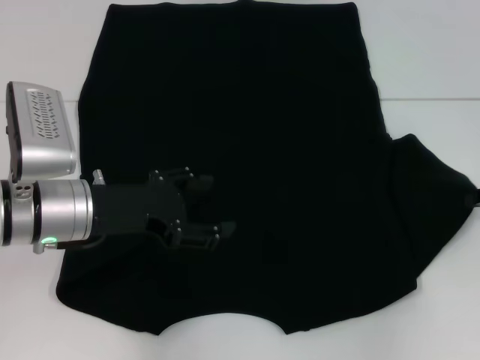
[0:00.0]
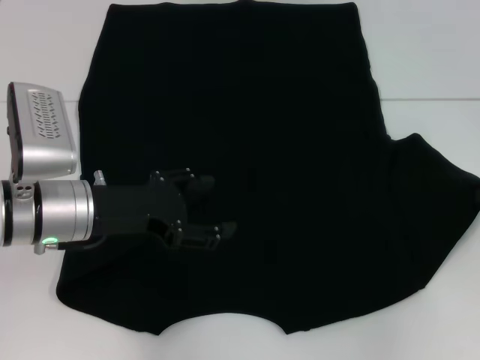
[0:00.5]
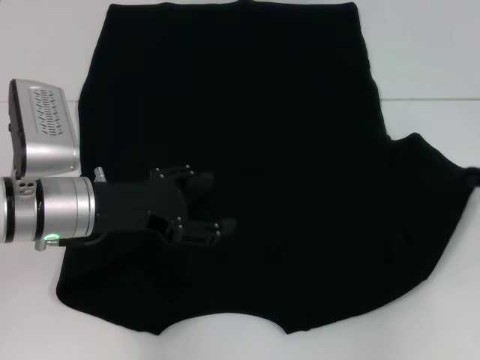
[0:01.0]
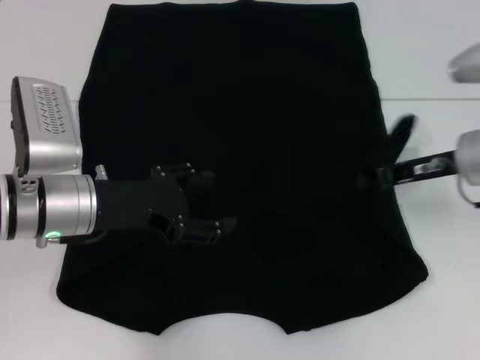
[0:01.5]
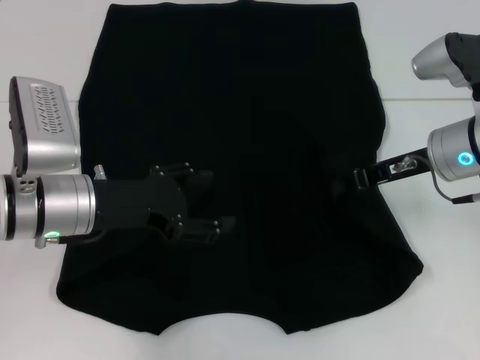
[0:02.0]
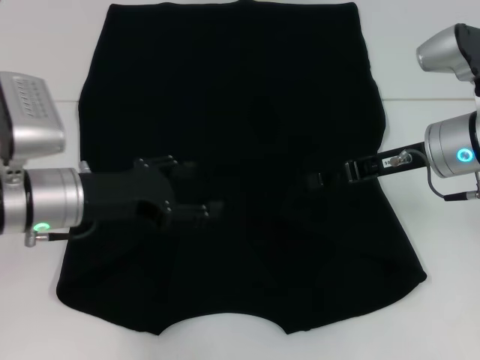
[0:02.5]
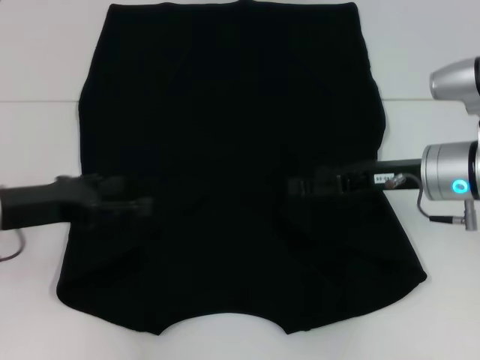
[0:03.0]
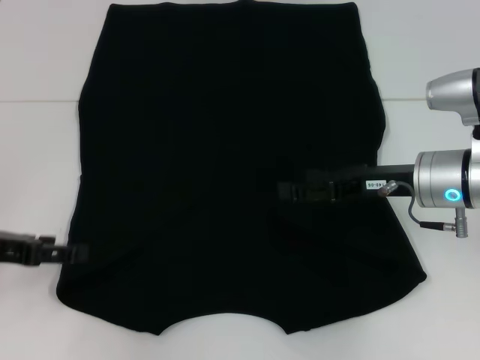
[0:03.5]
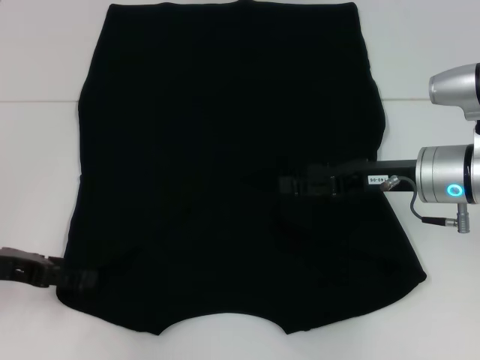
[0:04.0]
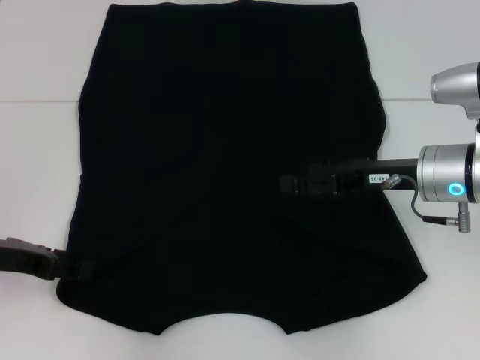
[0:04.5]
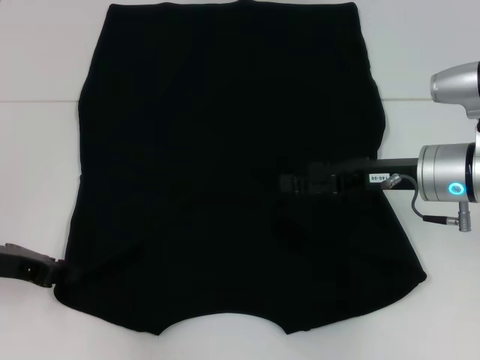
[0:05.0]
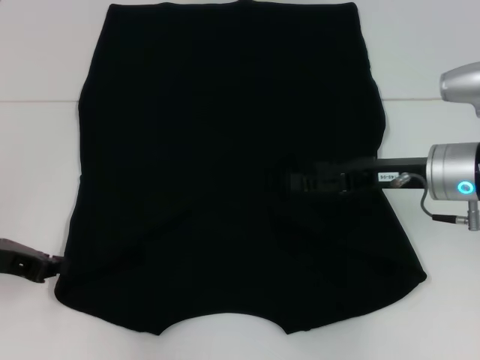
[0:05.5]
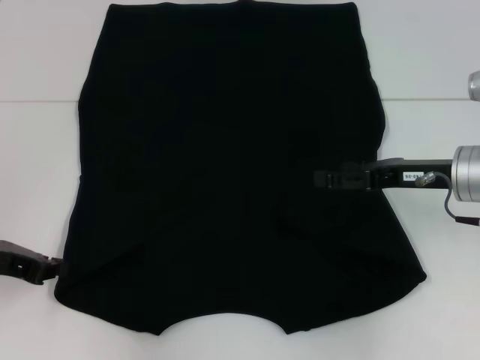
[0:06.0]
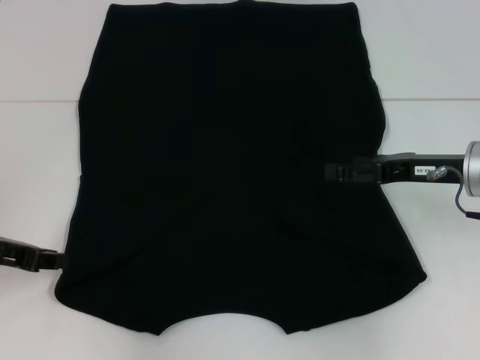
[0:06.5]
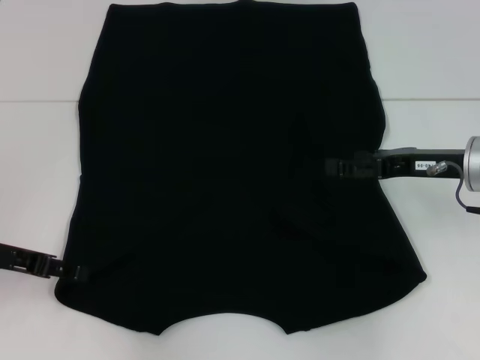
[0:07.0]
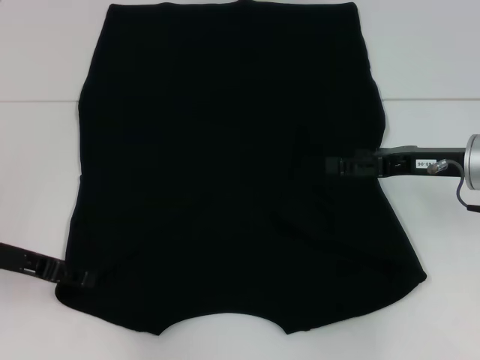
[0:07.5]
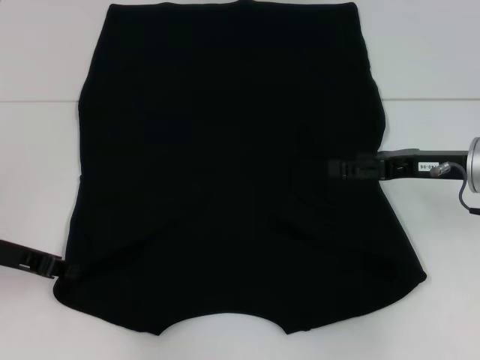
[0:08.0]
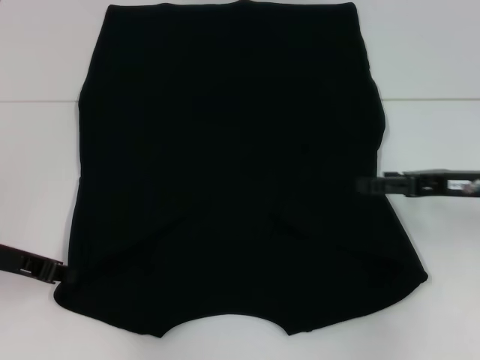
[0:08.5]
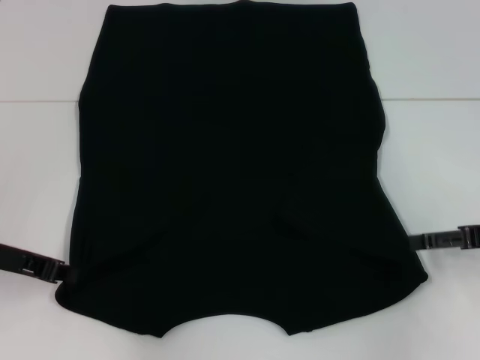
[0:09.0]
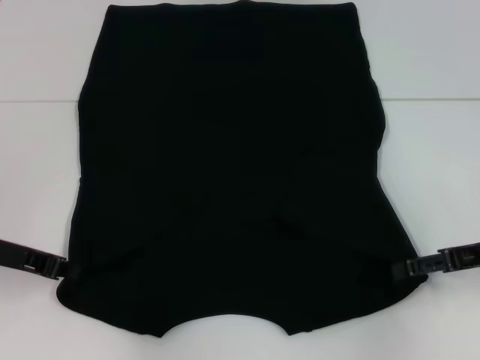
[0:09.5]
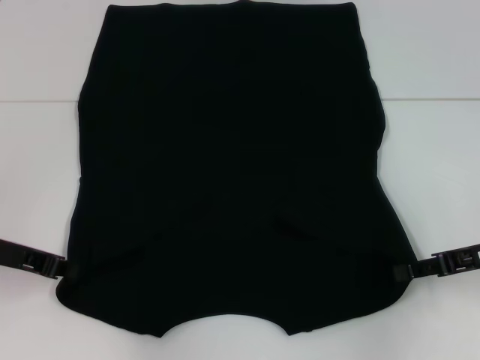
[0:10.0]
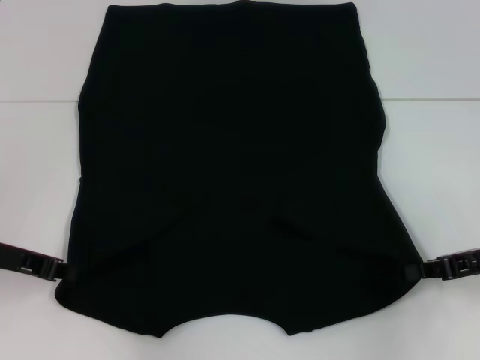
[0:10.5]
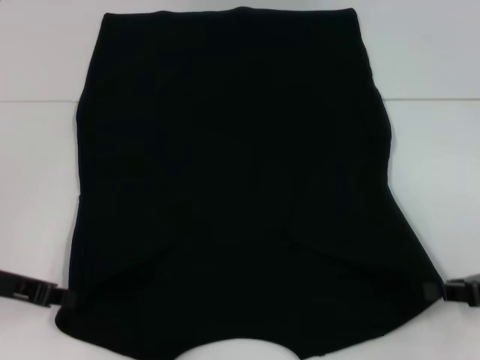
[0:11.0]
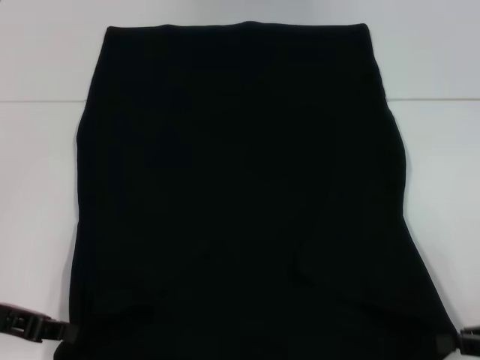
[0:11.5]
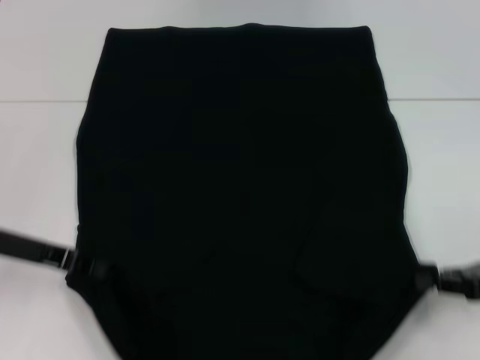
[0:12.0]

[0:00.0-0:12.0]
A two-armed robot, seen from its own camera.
Step, 0:00.0 to 0:02.5: Fold the bottom right sleeve with your right hand.
Step, 0:03.0 to 0:10.5: Grab the bottom left corner with your left hand.
Step, 0:03.0 to 0:10.5: Grab the bottom right corner with your right hand.
0:00.0 to 0:02.0: The right gripper is displaced to the left by some 15 cm.
0:02.0 to 0:04.0: The right gripper opens up. Meanwhile the left gripper moves to the left, approximately 10 cm.
0:04.0 to 0:06.0: The left gripper closes.
0:06.0 to 0:08.0: The left gripper opens, then closes once more.
0:08.0 to 0:10.0: The right gripper travels to the right by some 5 cm.
0:10.0 to 0:12.0: The right gripper is displaced backward by approximately 5 cm, and closes its fingers.

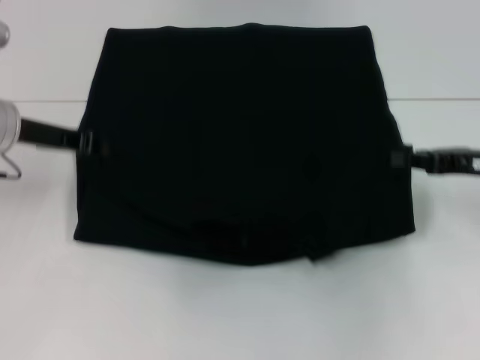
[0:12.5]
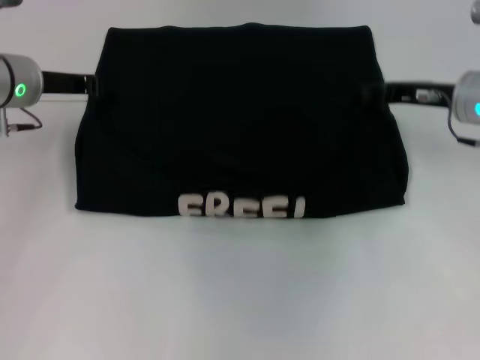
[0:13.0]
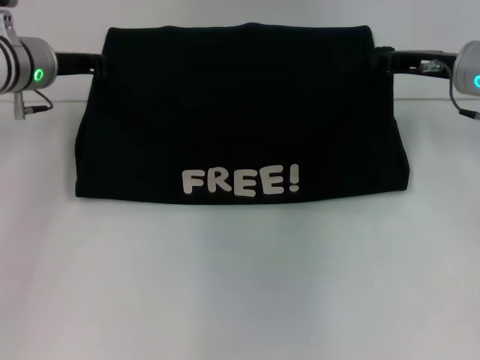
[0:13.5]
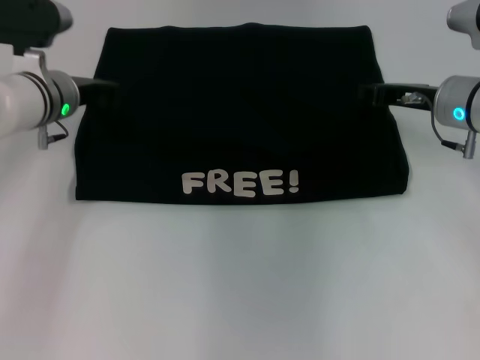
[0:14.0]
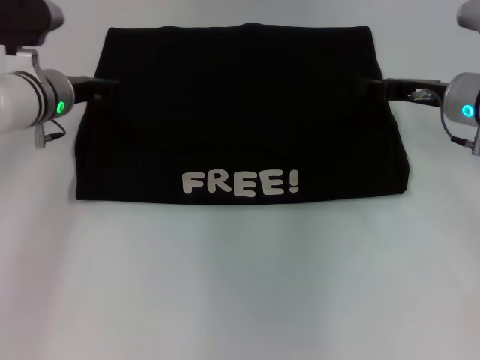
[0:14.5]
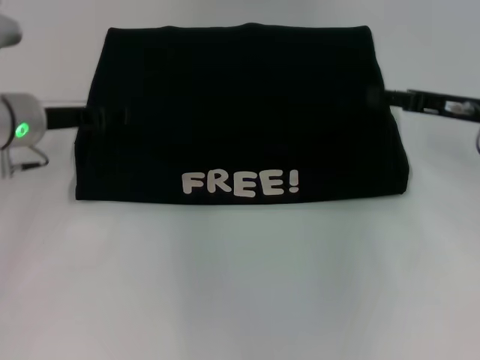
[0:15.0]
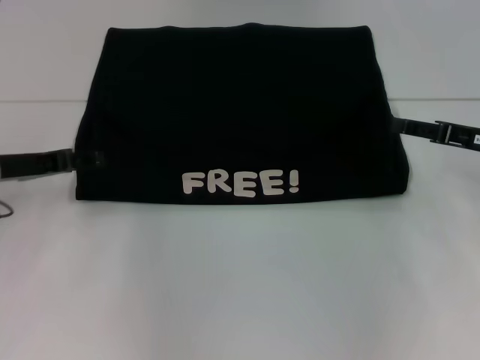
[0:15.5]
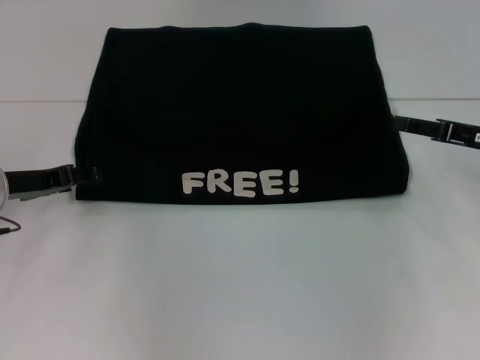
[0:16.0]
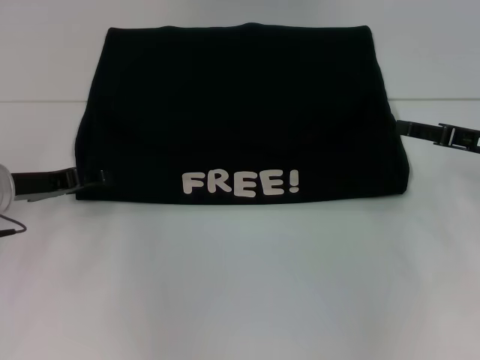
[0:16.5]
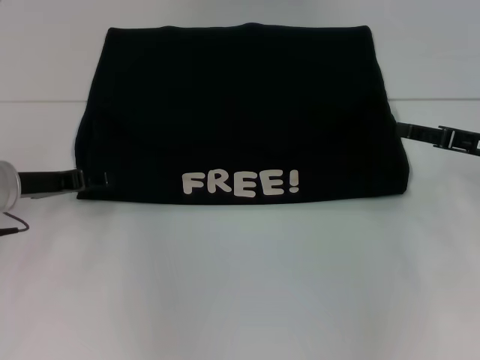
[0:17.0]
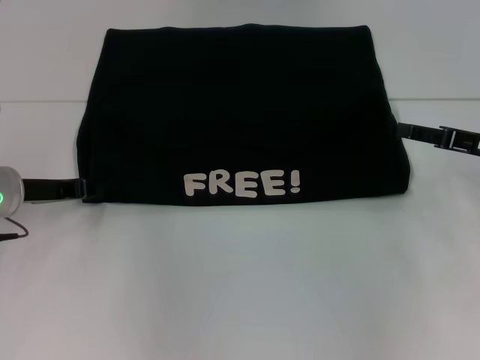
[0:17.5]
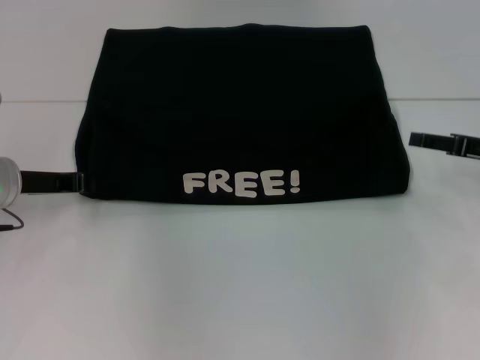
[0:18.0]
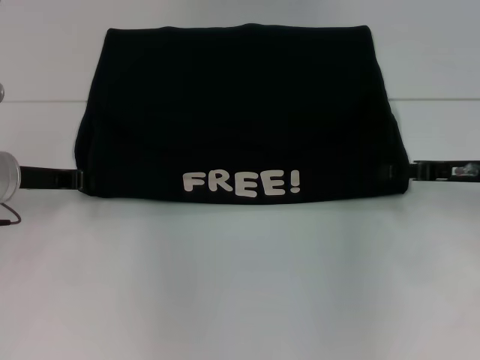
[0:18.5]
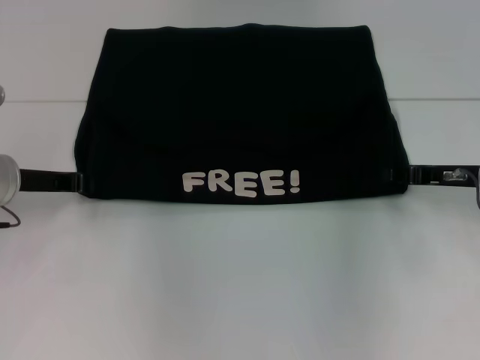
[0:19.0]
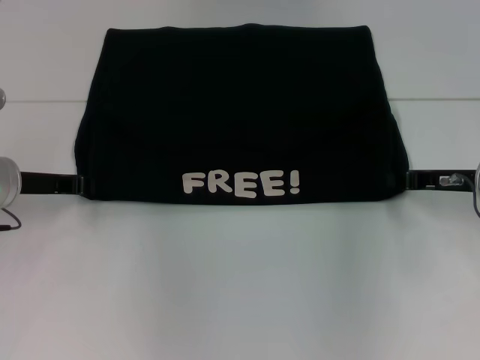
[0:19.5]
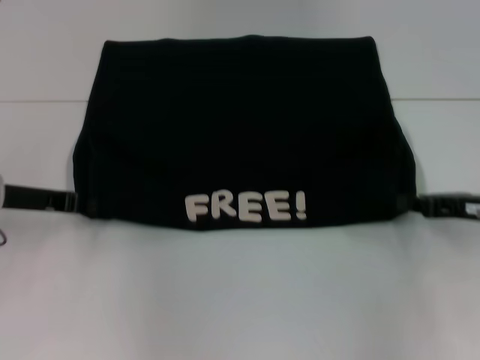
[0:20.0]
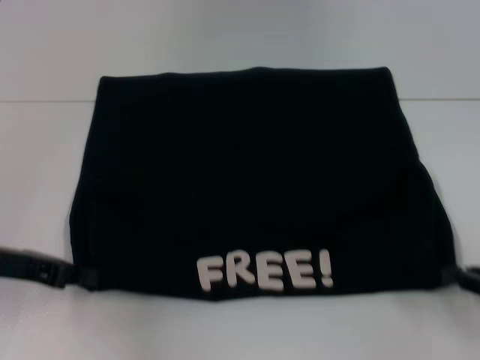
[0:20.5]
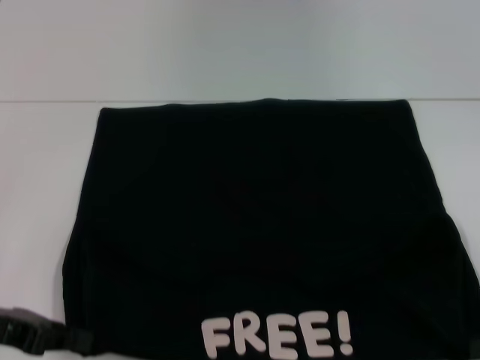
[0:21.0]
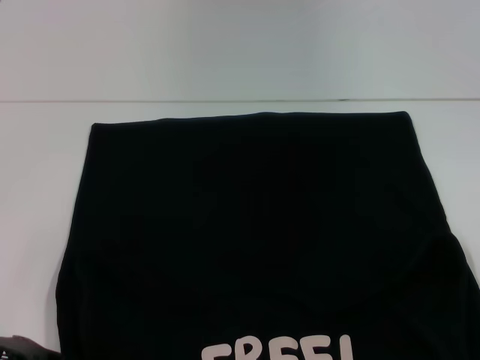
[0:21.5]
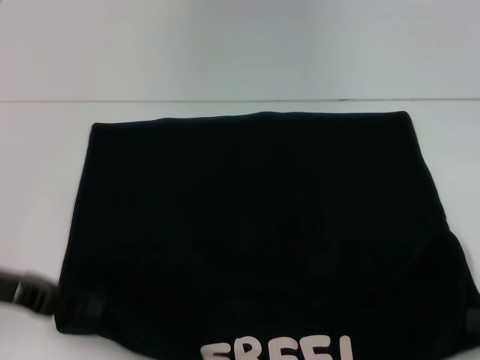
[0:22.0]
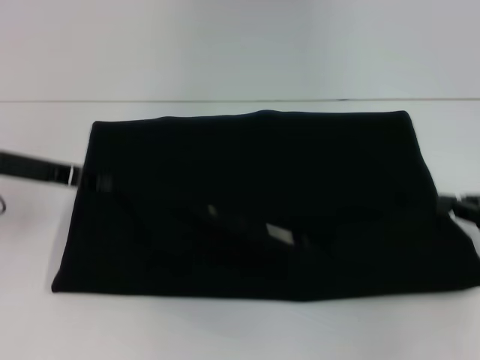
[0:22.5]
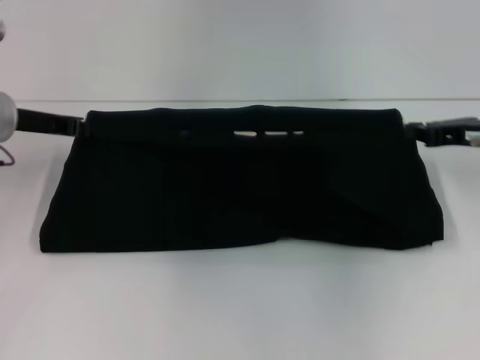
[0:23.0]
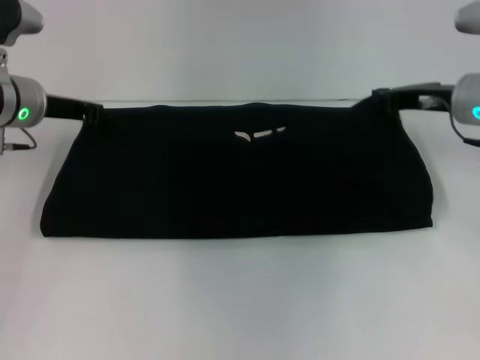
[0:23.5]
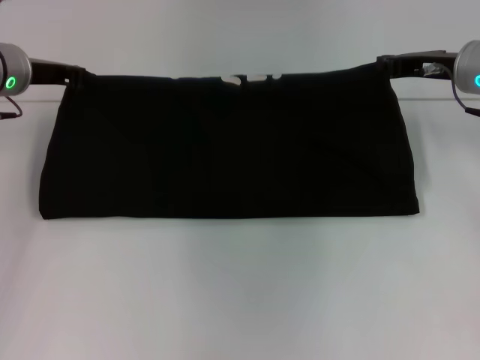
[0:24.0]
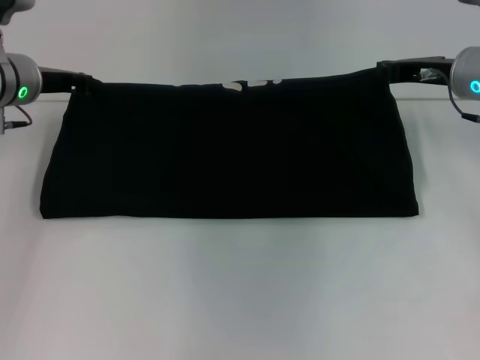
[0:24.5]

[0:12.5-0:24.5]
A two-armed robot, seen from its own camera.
Step, 0:12.5 to 0:15.0: Fold the clothes with your left hand.
Step, 0:12.5 to 0:15.0: Fold the clothes with your right hand.
Step, 0:15.5 to 0:20.5: Pull the clothes with your left hand.
Step, 0:15.5 to 0:20.5: Pull the clothes with your right hand.
0:12.5 to 0:14.5: The left gripper heads forward, covering about 5 cm, and opens its fingers. The right gripper heads forward and to the left, covering about 10 cm.
0:14.5 to 0:16.5: The right gripper moves to the right and backward, some 10 cm, and opens. Meanwhile the left gripper is displaced backward and to the left by about 10 cm, and opens up.
0:16.5 to 0:18.5: The left gripper closes its fingers.
0:18.5 to 0:20.5: The right gripper shifts roughly 15 cm backward and to the right, and closes. The left gripper shifts about 10 cm backward.
0:20.5 to 0:22.5: The two grippers go about 5 cm forward.
0:22.5 to 0:24.5: The left gripper moves forward, approximately 10 cm. The right gripper travels forward and to the left by some 20 cm.

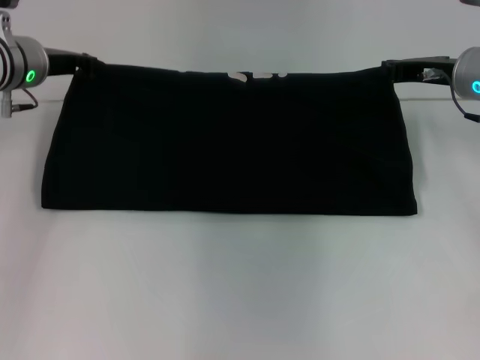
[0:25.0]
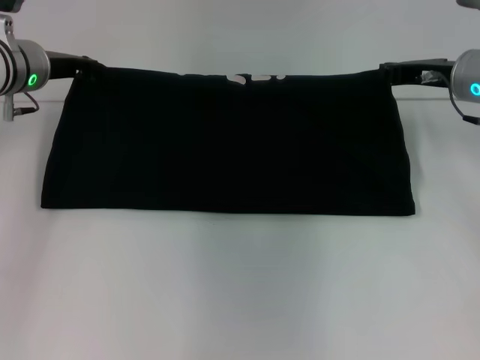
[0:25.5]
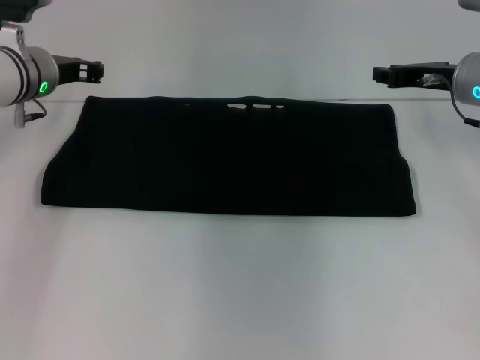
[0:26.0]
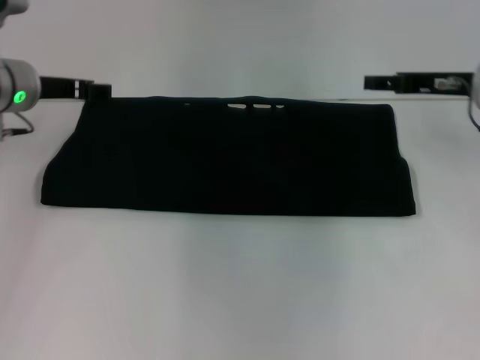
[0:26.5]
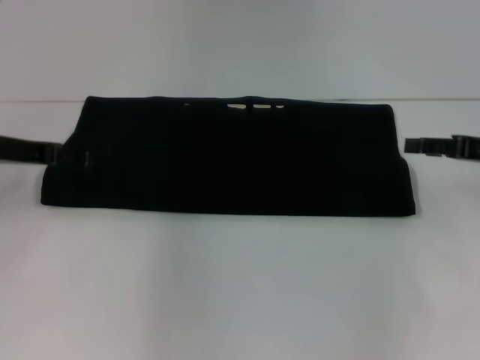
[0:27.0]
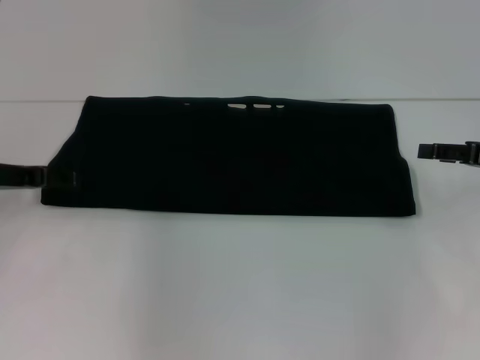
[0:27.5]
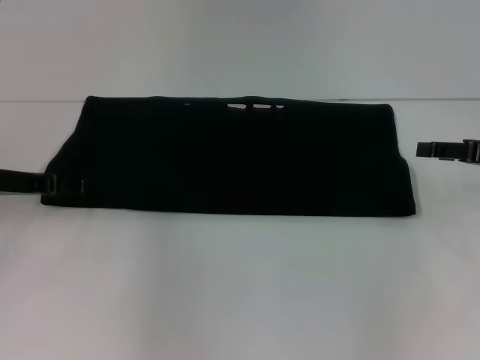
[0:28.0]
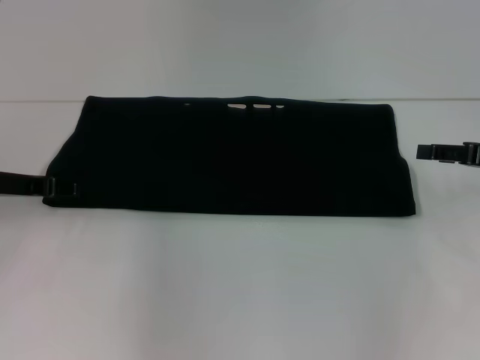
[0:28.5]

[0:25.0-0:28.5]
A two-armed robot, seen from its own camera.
0:25.0 to 0:27.0: The right gripper travels backward and to the right by some 10 cm, and opens; the left gripper shifts approximately 10 cm backward and to the left, and opens its fingers.
0:27.0 to 0:28.5: The left gripper ends up roughly 5 cm from where it was.
